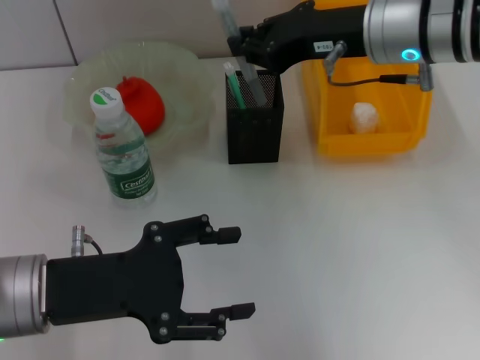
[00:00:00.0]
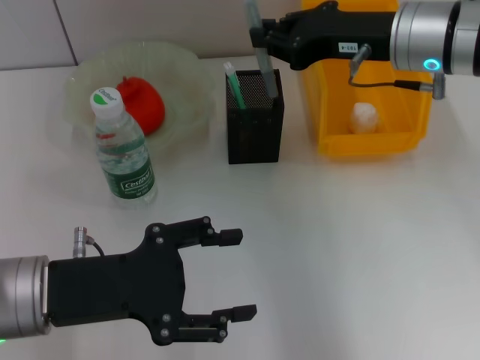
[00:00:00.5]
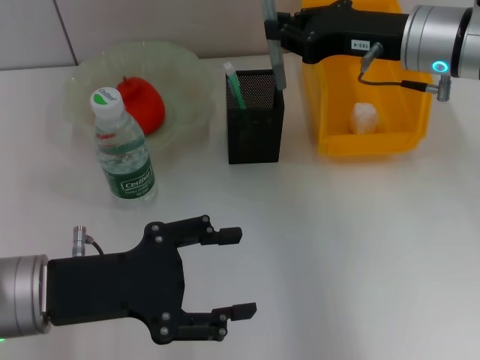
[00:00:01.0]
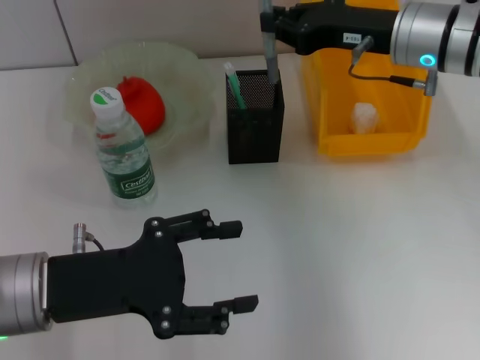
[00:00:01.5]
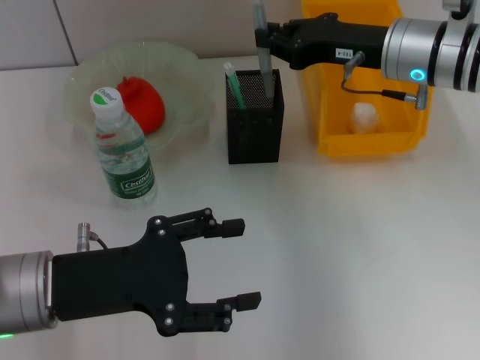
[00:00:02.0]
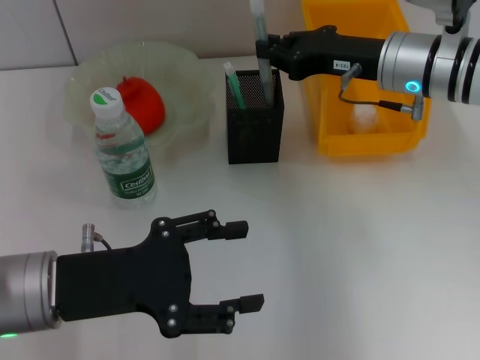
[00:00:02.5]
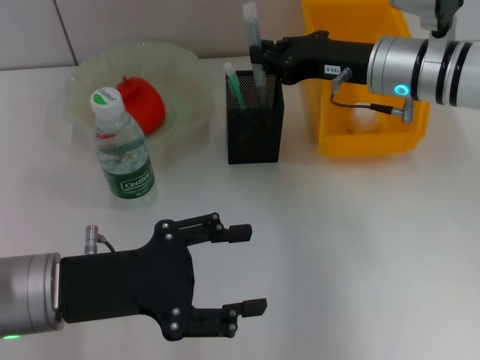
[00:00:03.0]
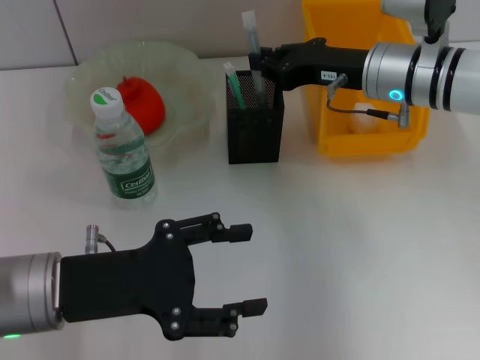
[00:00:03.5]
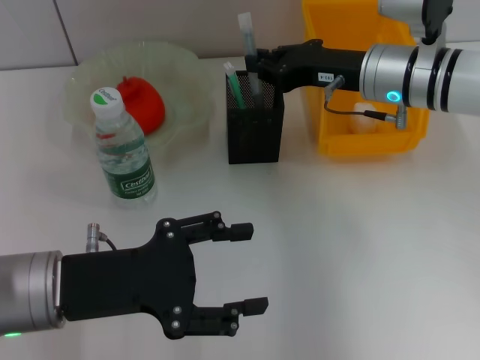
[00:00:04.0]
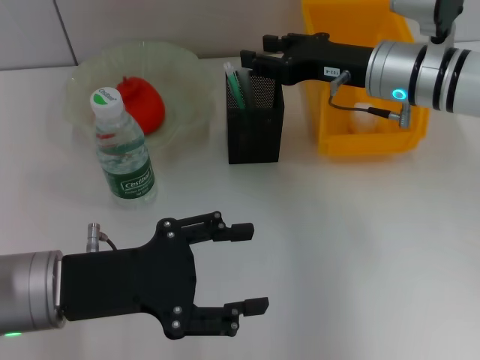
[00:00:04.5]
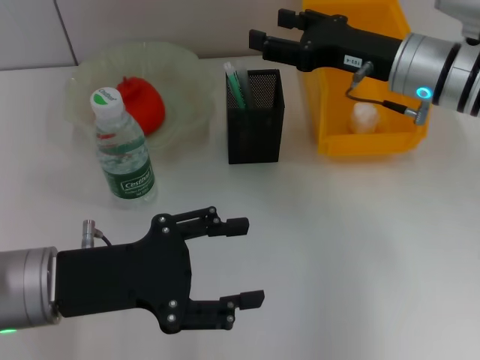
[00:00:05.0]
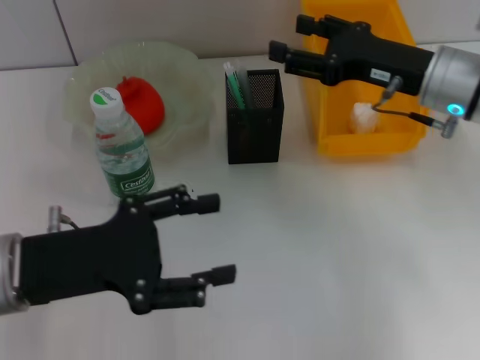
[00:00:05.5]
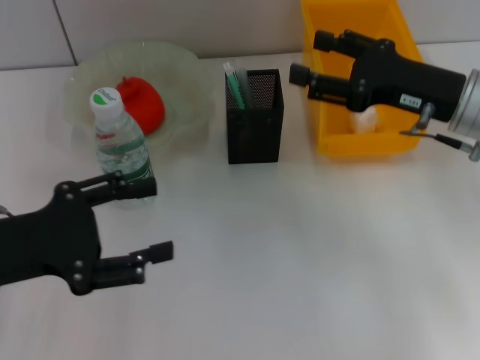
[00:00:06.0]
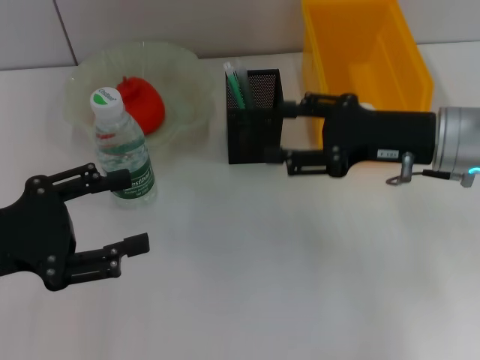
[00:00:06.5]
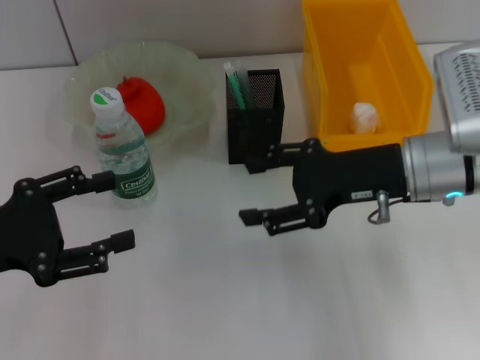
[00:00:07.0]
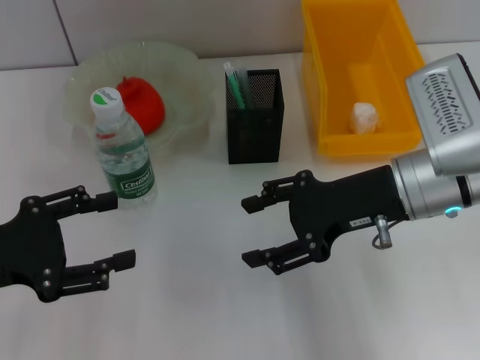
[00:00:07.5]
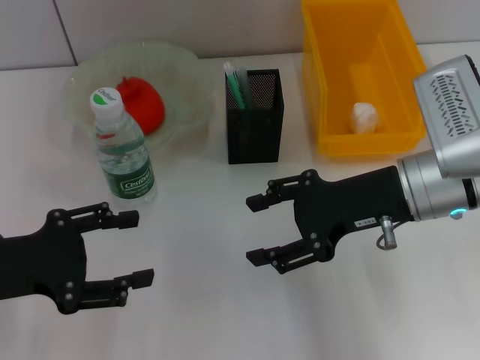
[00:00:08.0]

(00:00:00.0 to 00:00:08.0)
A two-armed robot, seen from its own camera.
Step, 00:00:00.0 - 00:00:04.5: Place the gray glue into the pen holder with the right hand.
00:00:00.0 - 00:00:02.0: The right gripper travels downward by some 5 cm.
00:00:02.0 - 00:00:04.0: The grippers make only small movements.
00:00:04.0 - 00:00:06.0: The right gripper is displaced backward and to the right by approximately 10 cm, and opens up. The left gripper heads to the left, covering some 5 cm.
00:00:06.0 - 00:00:08.0: The right gripper goes about 5 cm to the left.
